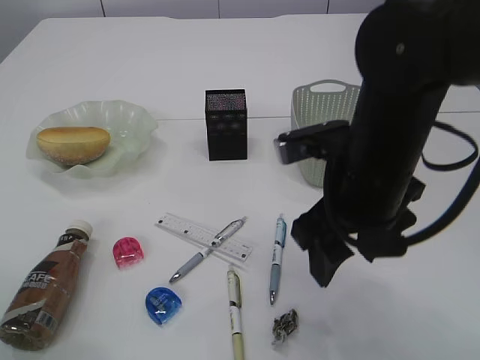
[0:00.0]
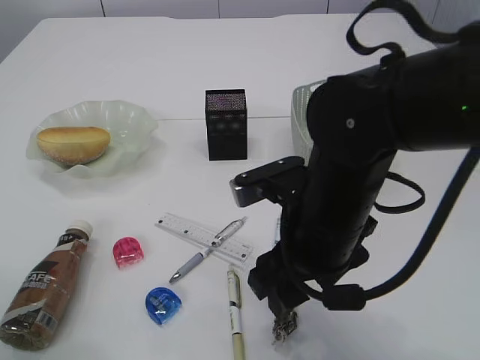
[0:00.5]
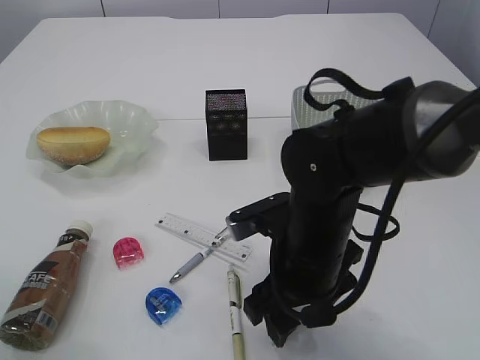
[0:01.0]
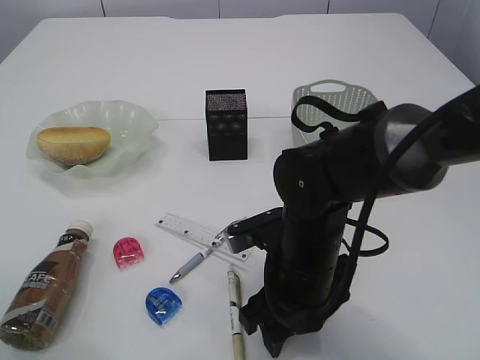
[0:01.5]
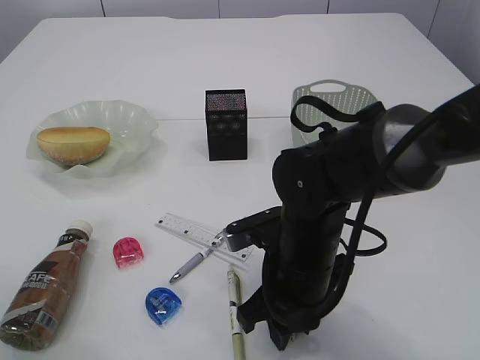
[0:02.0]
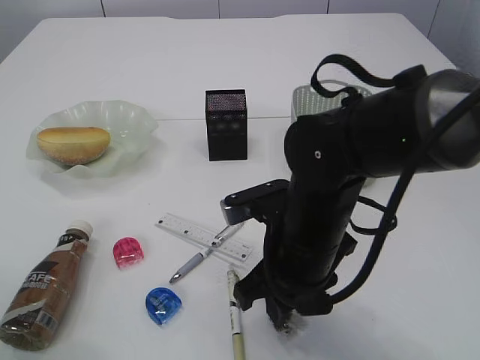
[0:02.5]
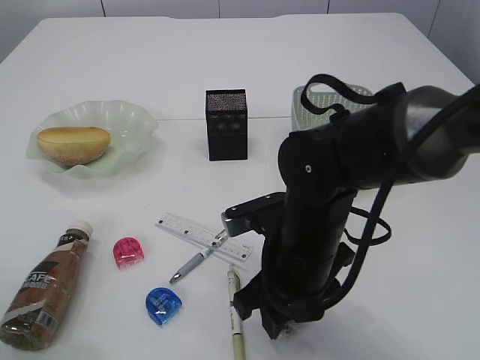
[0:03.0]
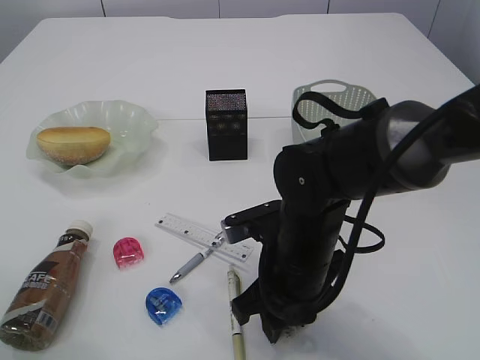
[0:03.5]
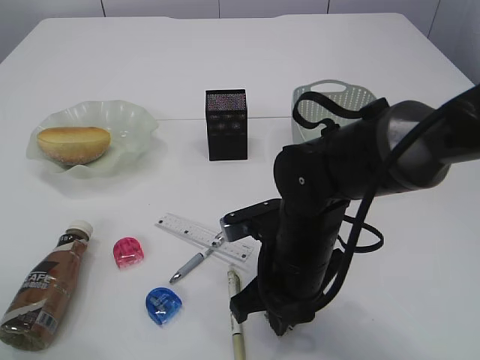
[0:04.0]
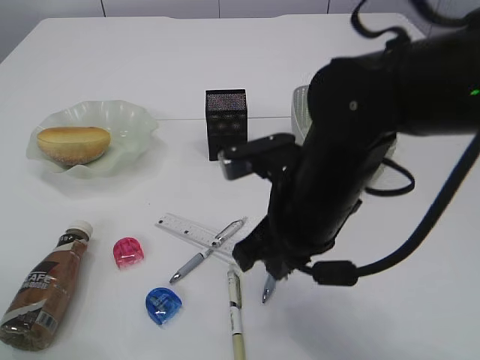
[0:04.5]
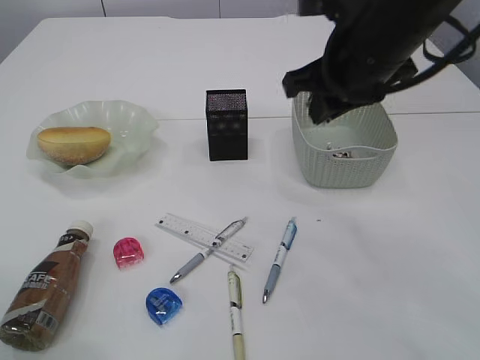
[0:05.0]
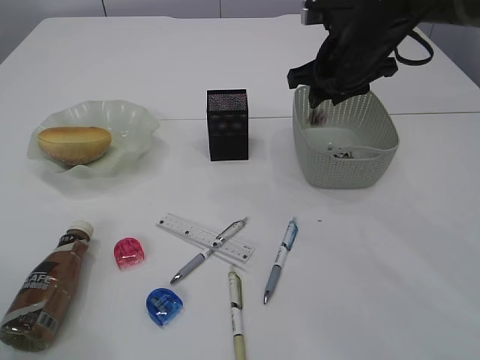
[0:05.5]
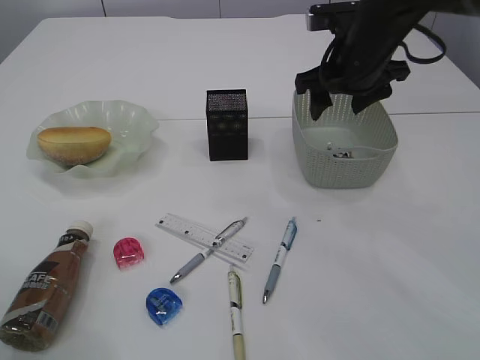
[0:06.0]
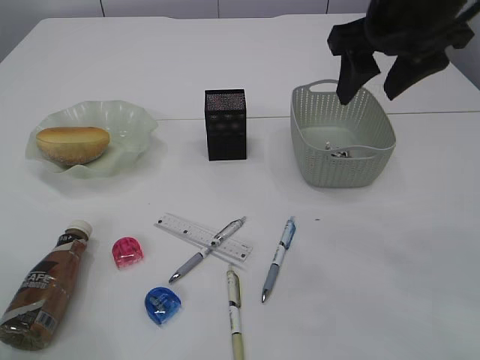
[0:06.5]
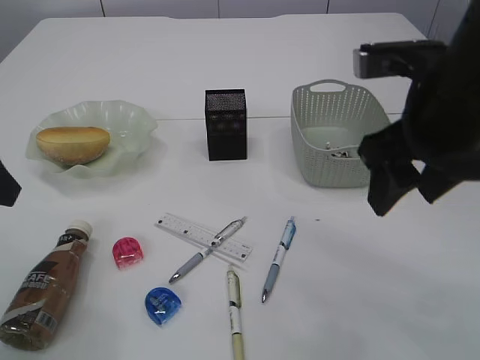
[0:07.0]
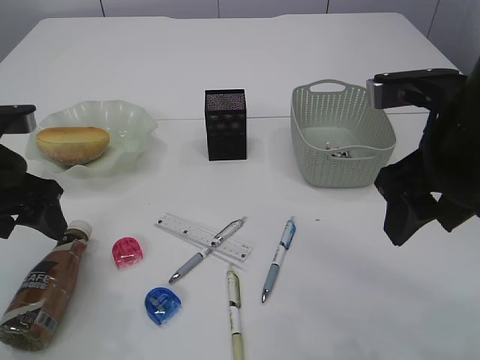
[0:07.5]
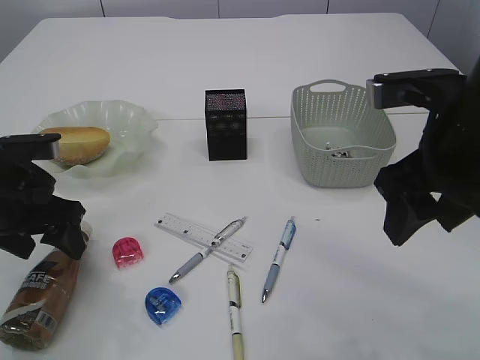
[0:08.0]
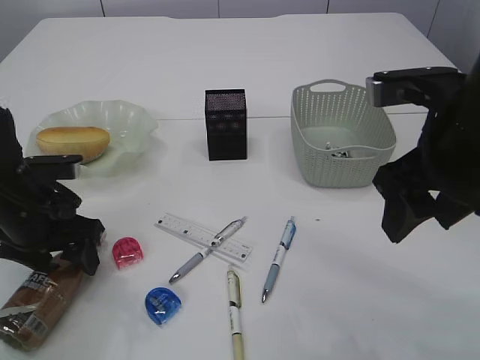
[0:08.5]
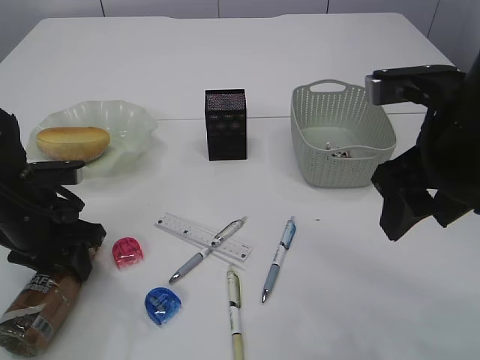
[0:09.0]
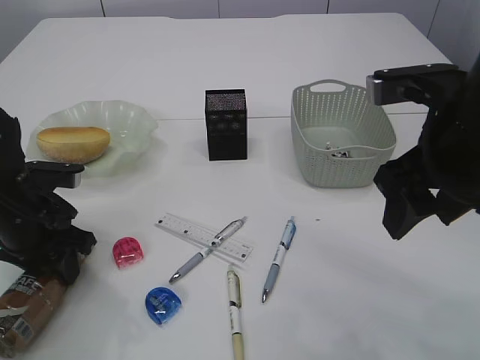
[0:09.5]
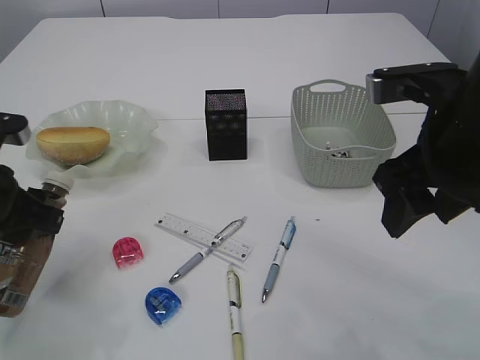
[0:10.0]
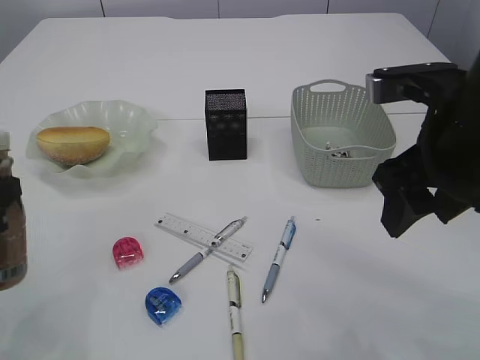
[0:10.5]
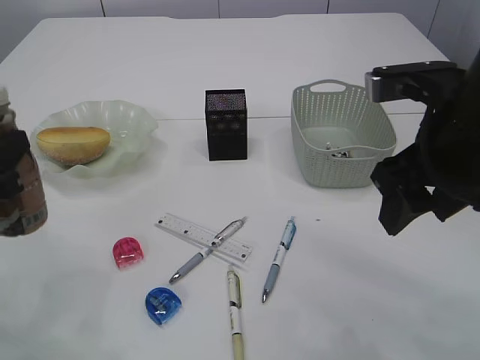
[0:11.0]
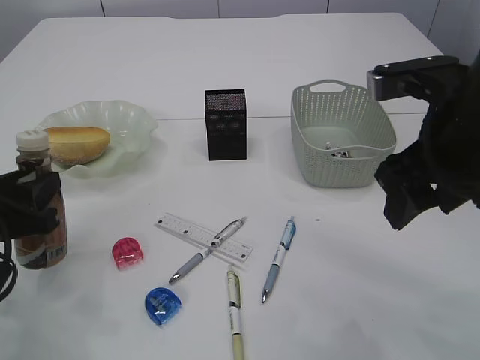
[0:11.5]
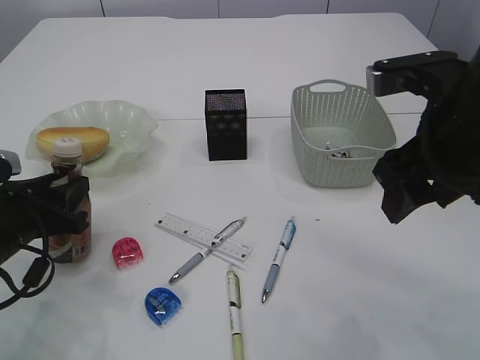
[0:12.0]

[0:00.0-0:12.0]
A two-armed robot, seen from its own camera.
Step, 0:00.0 to 0:04.5: Pick up the waste paper.
Step, 0:05.0 to 0:05.5: Place the waste paper in the basket.
Step, 0:06.0 to 0:10.0: Pick up the bottle with the left arm.
0:00.0 to 0:02.0: The right gripper moves downward and to the left, about 15 cm, and closes up.
0:02.0 to 0:04.0: The right gripper closes up.
0:04.0 to 0:06.0: The right gripper heads forward, upward and to the right, covering about 25 cm, and opens its fingers.
0:06.0 to 0:08.0: The right gripper goes approximately 20 cm backward. The left gripper shifts approximately 15 cm downward and forward.
0:08.0 to 0:10.0: The left gripper closes its fingers.
0:10.0 to 0:12.0: The left gripper moves downward, approximately 5 cm.

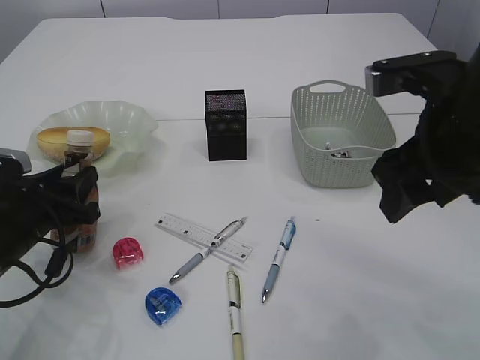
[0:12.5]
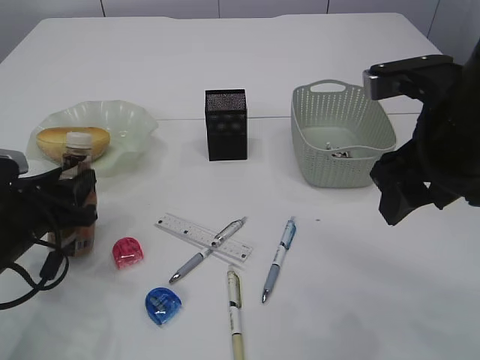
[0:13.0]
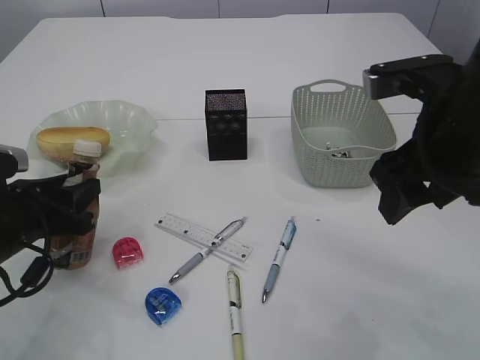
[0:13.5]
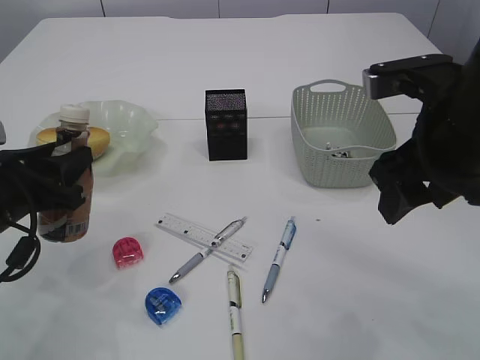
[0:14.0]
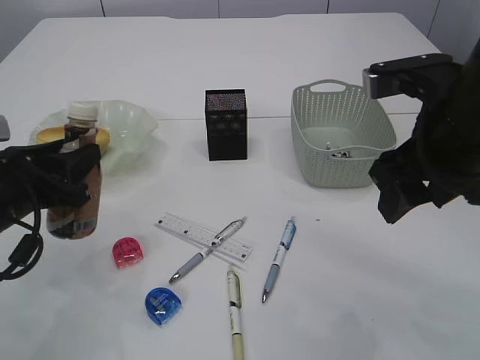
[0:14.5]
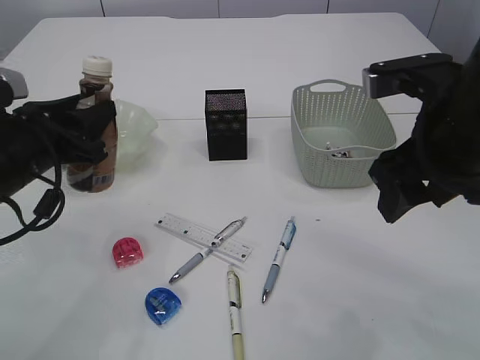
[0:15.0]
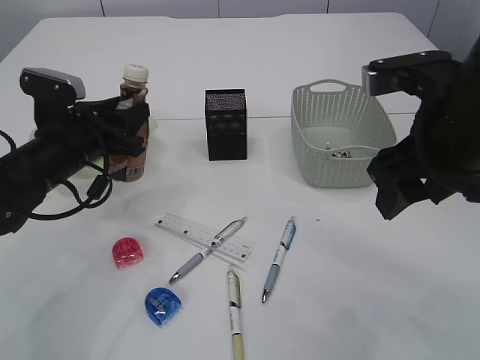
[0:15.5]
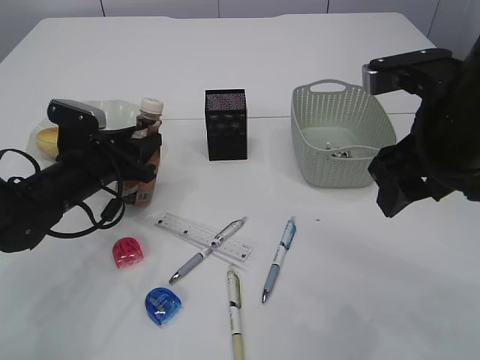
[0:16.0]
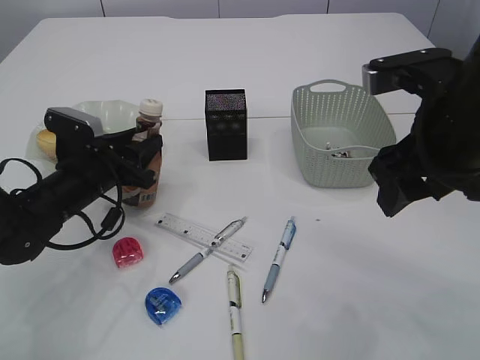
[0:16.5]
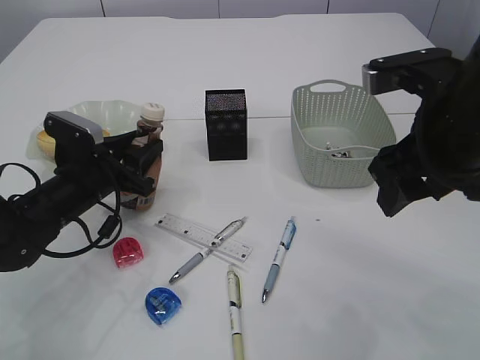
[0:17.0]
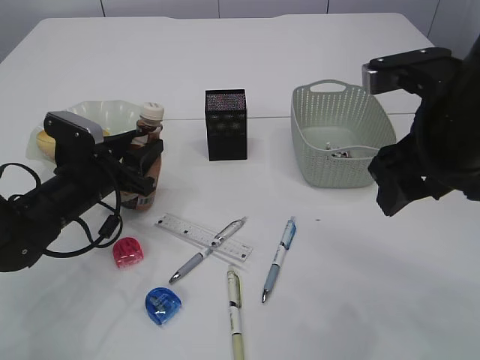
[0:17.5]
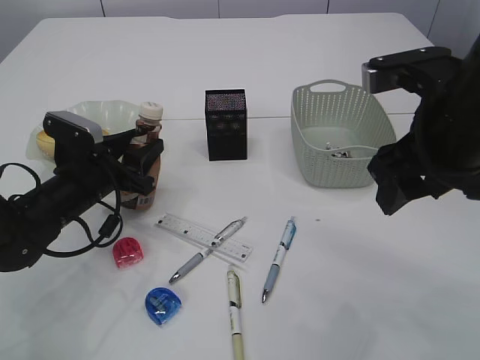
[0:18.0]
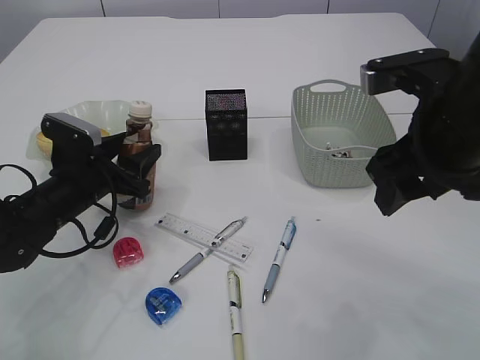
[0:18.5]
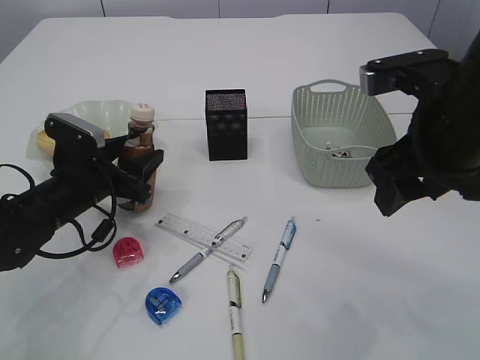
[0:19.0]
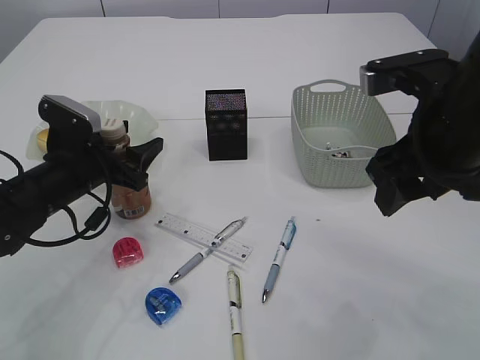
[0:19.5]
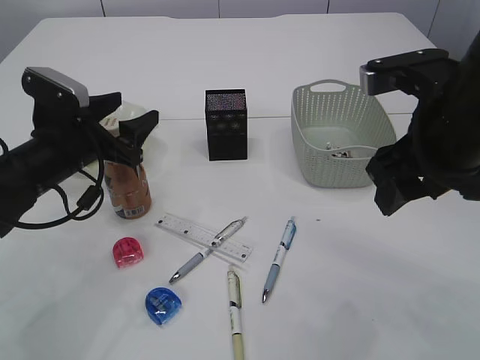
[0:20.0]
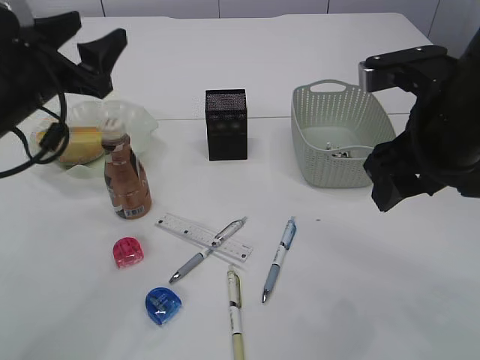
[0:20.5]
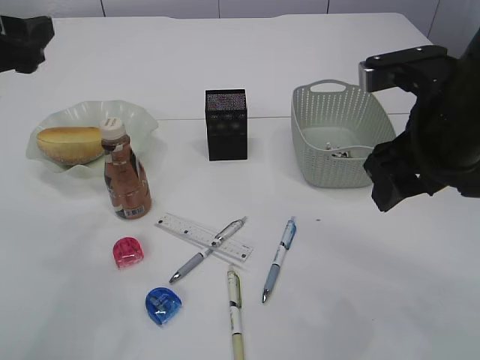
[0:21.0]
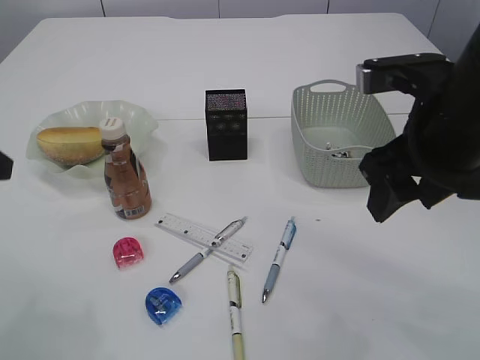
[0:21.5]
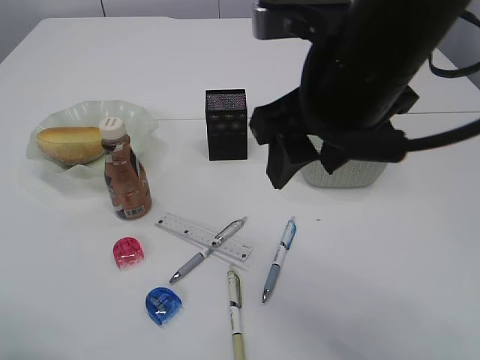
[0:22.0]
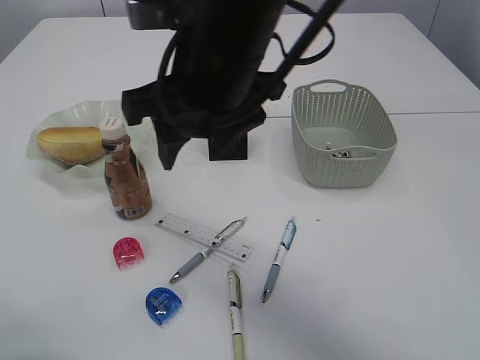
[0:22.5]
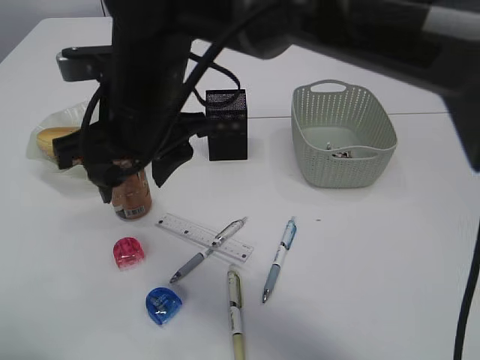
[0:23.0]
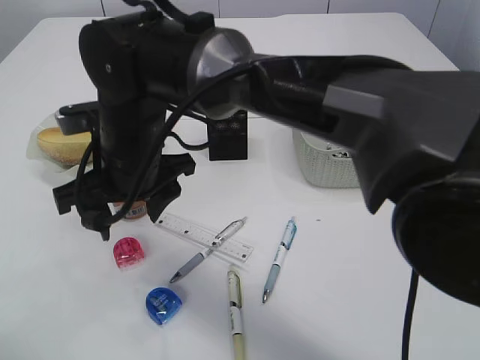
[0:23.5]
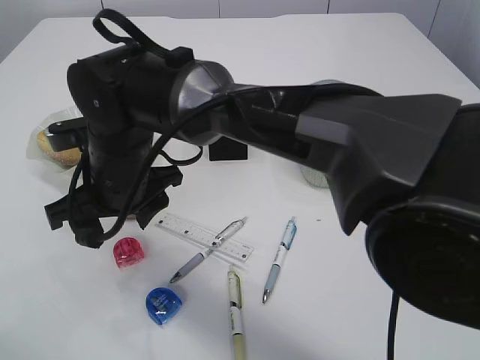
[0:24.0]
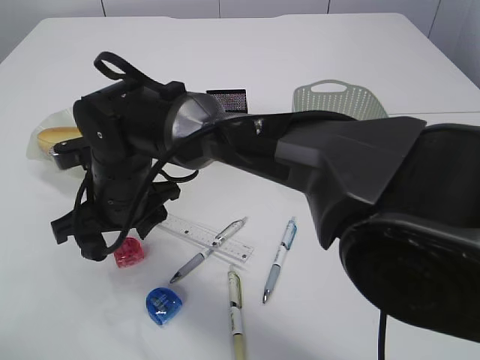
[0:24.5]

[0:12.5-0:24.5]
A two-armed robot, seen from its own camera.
Step, 0:12.5 to 0:20.0: Place the bottle.
0:12.5 to 0:14.5: The left gripper moves upward, roughly 5 cm.
0:14.5 to 0:16.5: The left gripper travels forward and downward by roughly 15 cm.
0:16.5 to 0:18.5: The left gripper opens its fingers.
0:18.5 to 0:20.5: The left gripper shifts roughly 15 cm upward.
0:20.5 to 0:22.5: The left gripper heads backward, covering about 15 cm. Meanwhile the right gripper moves to the left, about 20 cm.
0:22.5 to 0:24.5: The right gripper moves downward and to the left, roughly 20 cm.

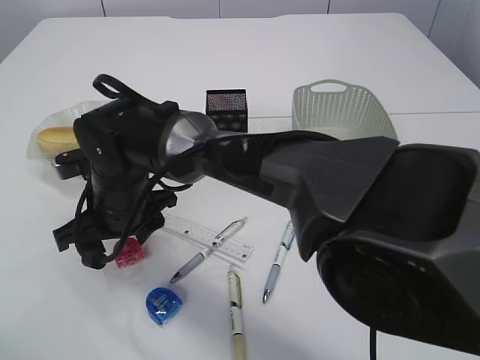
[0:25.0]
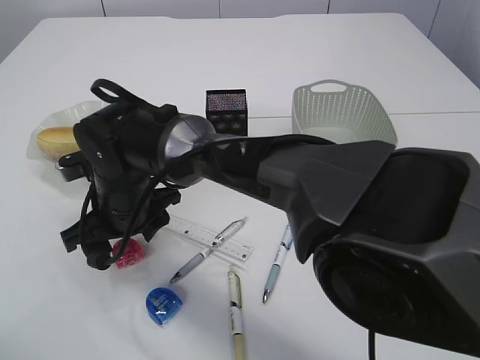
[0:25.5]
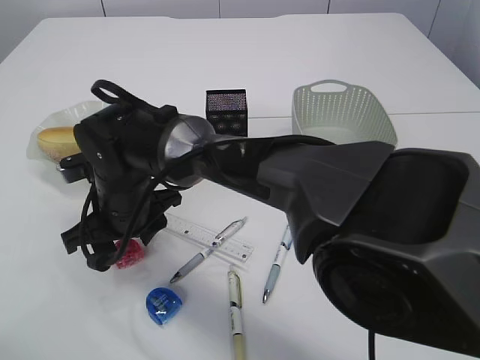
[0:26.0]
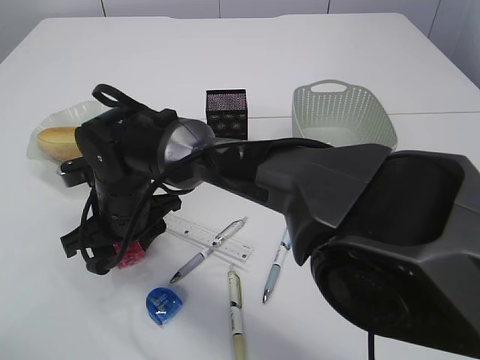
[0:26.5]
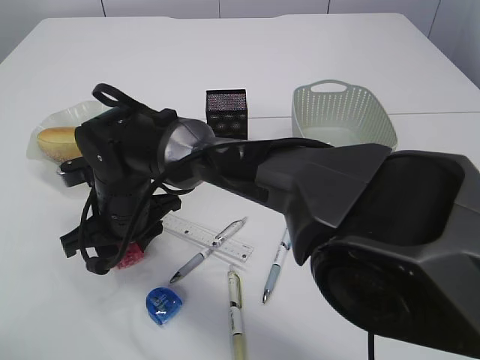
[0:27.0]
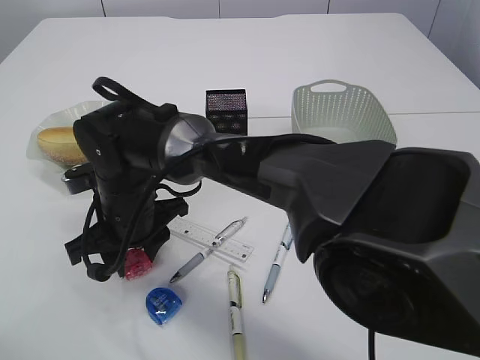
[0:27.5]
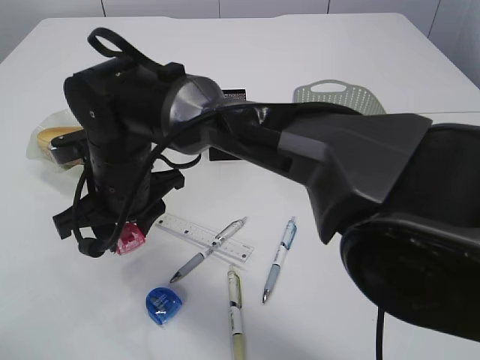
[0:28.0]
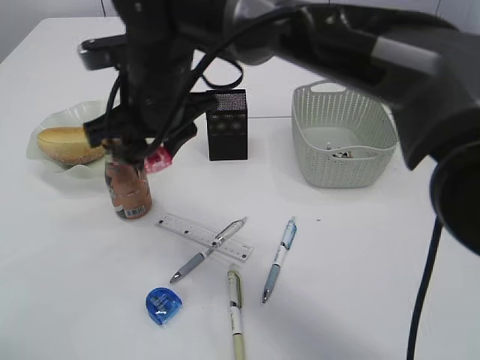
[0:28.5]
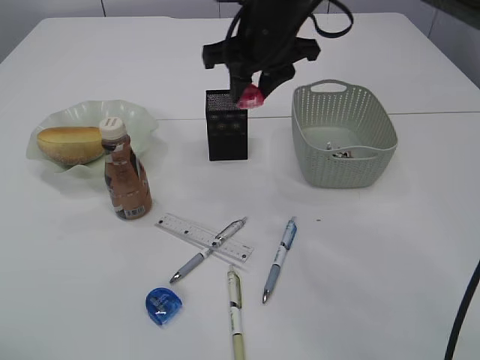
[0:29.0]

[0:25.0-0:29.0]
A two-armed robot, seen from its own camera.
Step, 0:25.0 to 0:28.0: Pick up the red pencil sharpener.
0:25.0 to 0:27.0: The right gripper closes its fingers.
0:27.0 to 0:29.0: The right gripper goes approximately 25 cm to the right, upward and forward.
